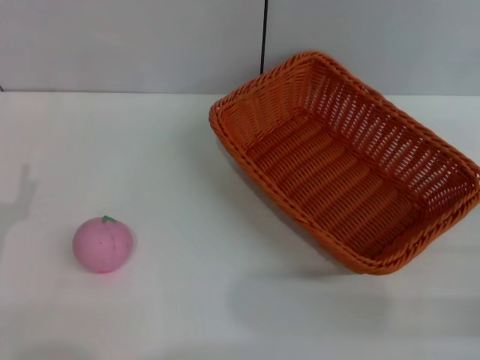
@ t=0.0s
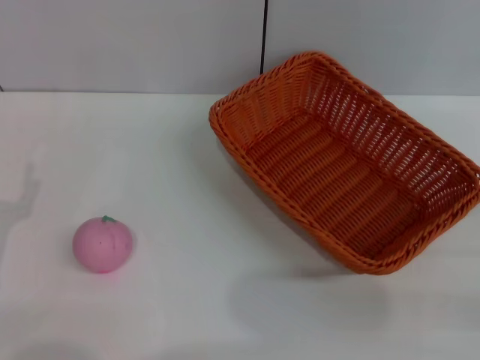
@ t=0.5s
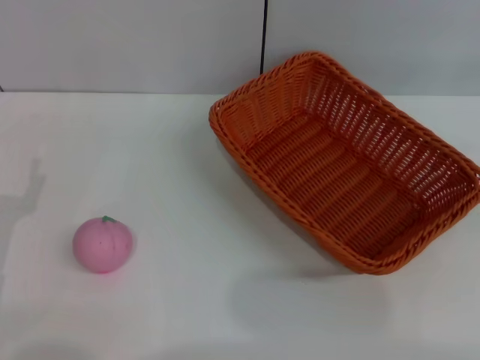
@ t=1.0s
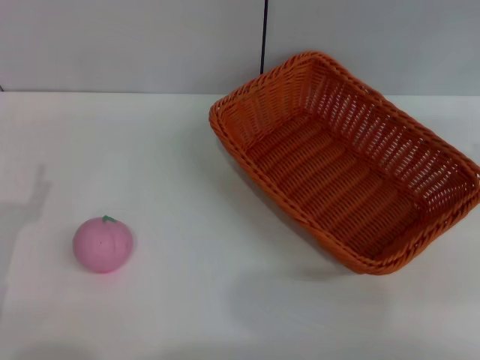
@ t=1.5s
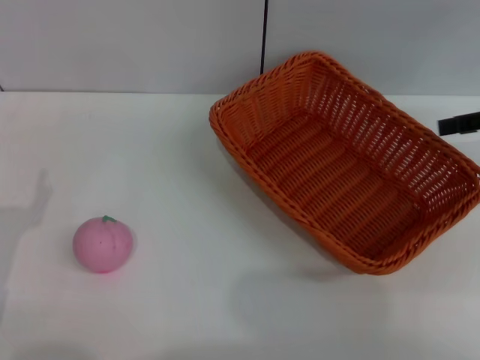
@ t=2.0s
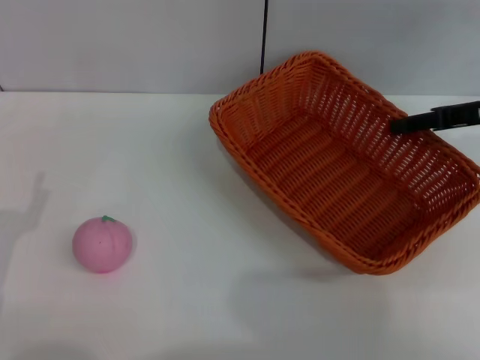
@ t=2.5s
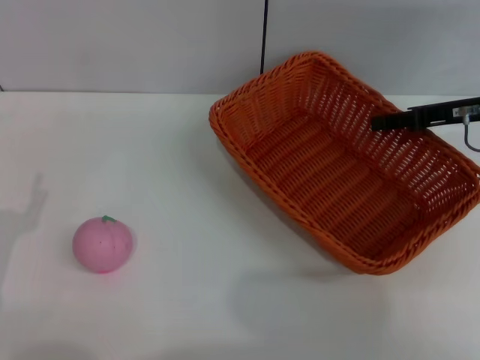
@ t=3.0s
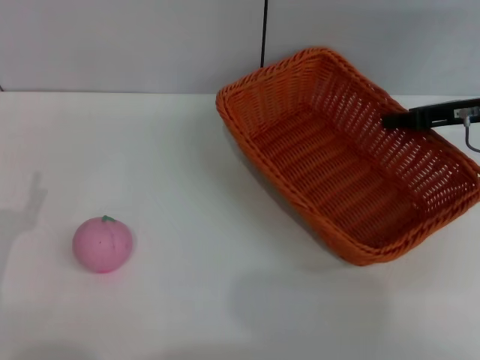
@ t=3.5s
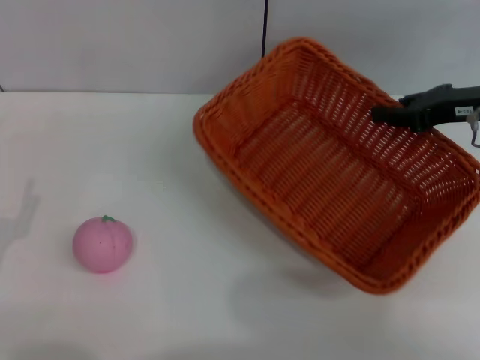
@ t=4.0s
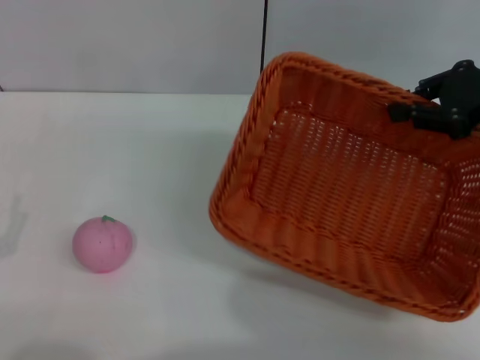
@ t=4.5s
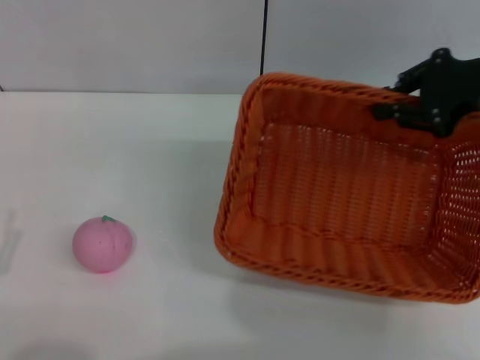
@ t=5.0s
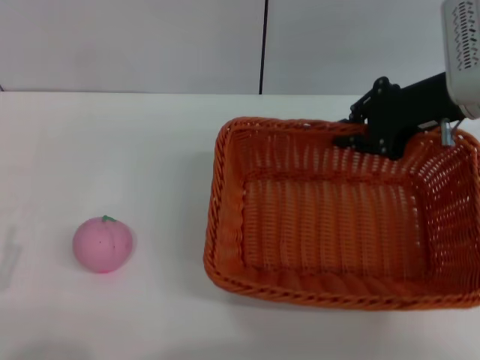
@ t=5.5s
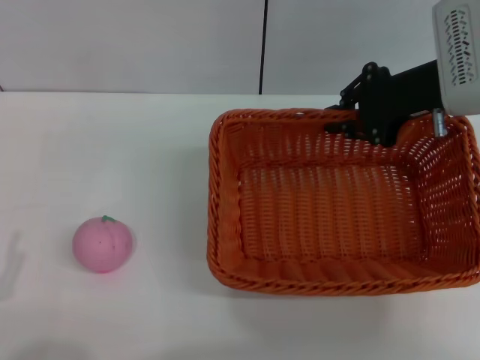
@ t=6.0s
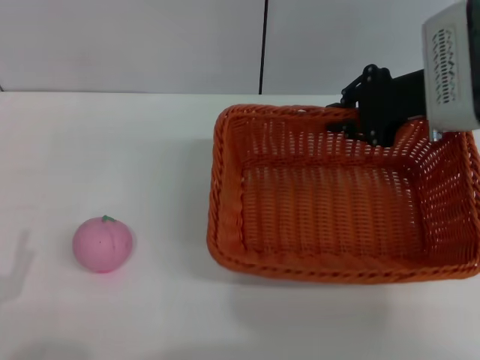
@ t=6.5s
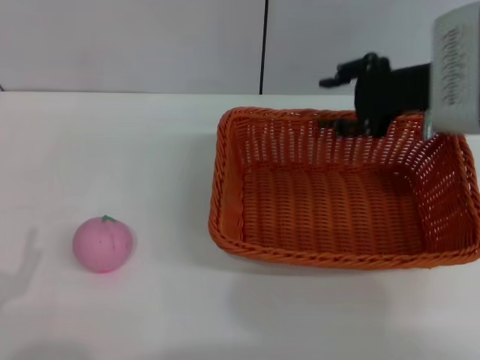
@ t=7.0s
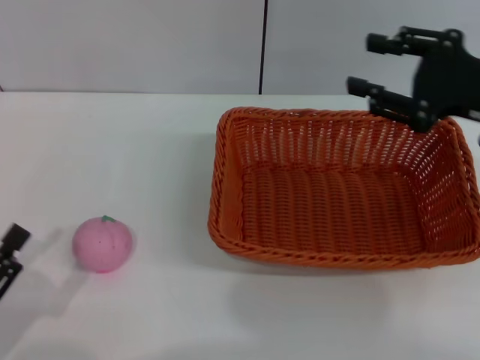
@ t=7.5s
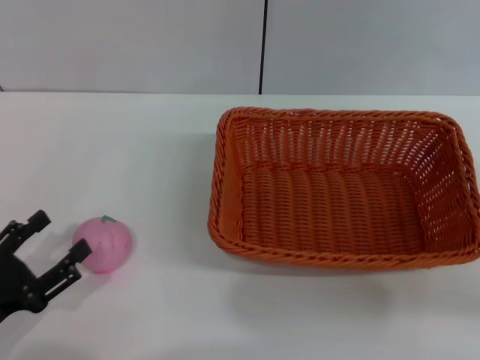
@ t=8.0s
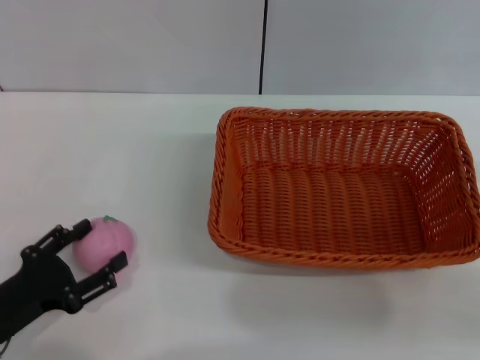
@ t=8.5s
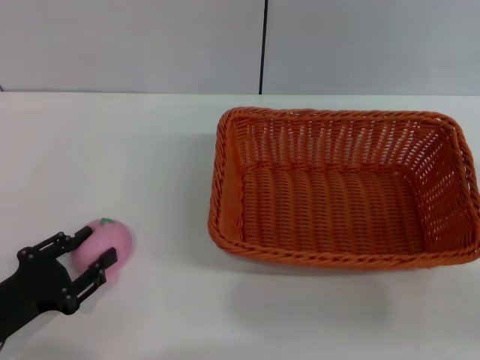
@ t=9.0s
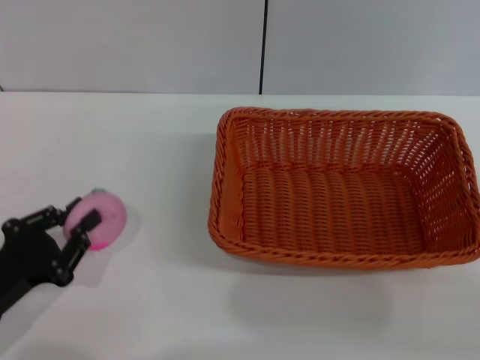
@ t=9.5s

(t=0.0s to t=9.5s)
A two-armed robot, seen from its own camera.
Step, t=0.0s - t=3.5s: Pick up the light basket with the right gripper.
Step, t=4.5s - t=7.0s: Place the light basket in the center of view with the right gripper.
t=0.0s - t=2.0s: The right gripper goes some 20 cm forward and upward.
t=2.0s - t=4.0s: The right gripper travels to the left by some 5 cm, and closes its fingers.
t=4.0s - t=5.5s: The left gripper goes approximately 5 cm backward. The right gripper goes some 5 cm to the left.
t=5.5s - t=7.5s: The right gripper travels backward by about 10 cm, and opens its fingers.
t=7.5s - t=9.5s: The right gripper is displaced backward, downward and to the right by approximately 15 cm, while the left gripper shifts about 5 cm forward, and closes.

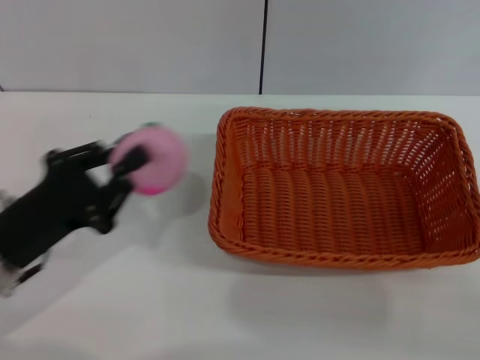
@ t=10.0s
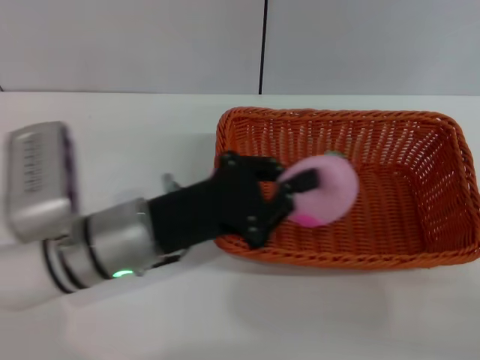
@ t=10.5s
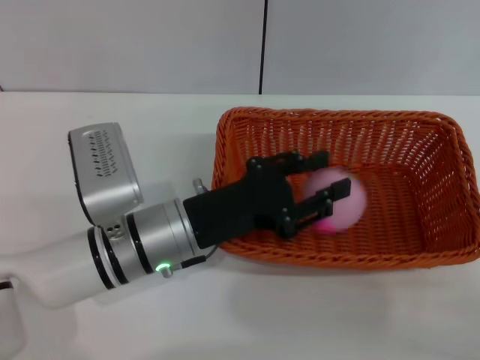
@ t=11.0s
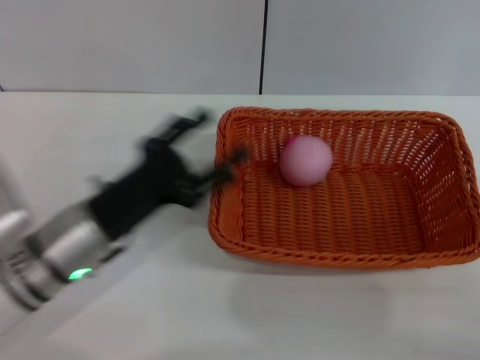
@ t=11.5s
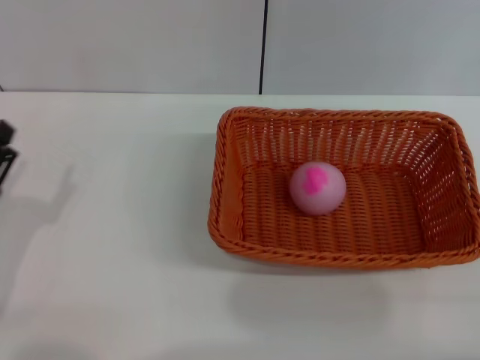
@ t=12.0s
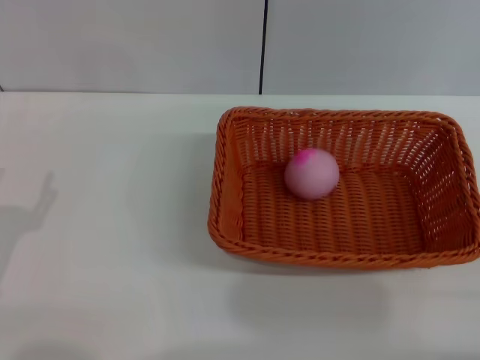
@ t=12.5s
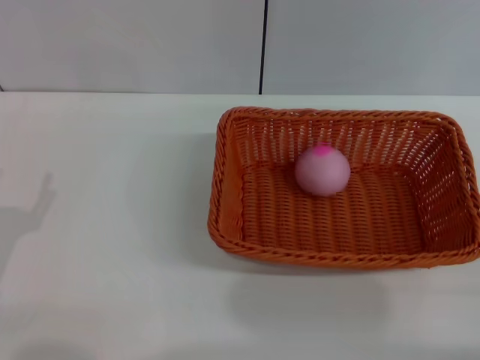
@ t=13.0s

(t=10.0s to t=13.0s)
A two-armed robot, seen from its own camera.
Step, t=10.0s - t=11.5s: Place the peach into the basket with the left gripper.
t=10.0s - t=11.5s: The left gripper heads to the right, covering some 5 cm, and opens up.
t=11.5s - t=13.0s: The left gripper moves to the left and backward, approximately 15 cm.
